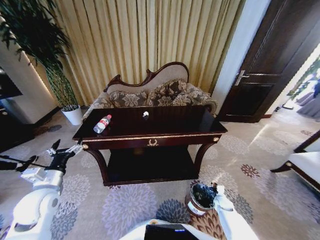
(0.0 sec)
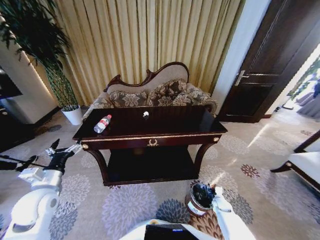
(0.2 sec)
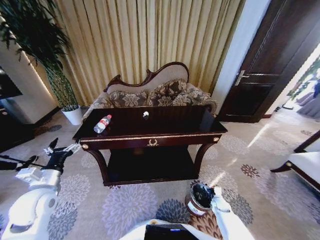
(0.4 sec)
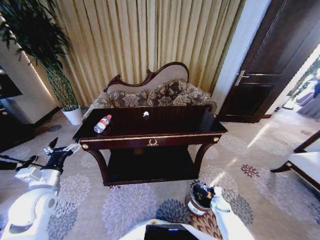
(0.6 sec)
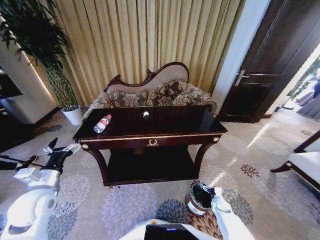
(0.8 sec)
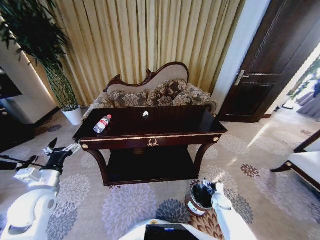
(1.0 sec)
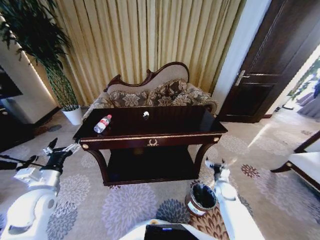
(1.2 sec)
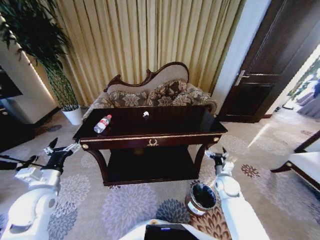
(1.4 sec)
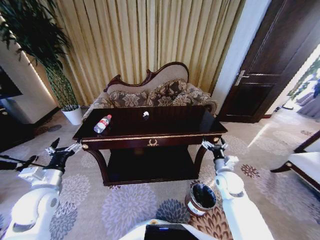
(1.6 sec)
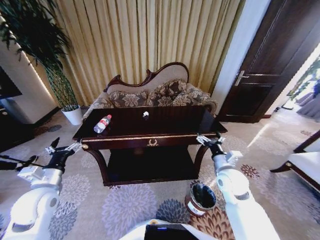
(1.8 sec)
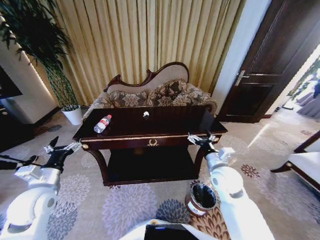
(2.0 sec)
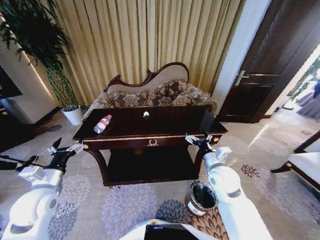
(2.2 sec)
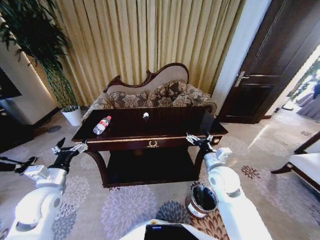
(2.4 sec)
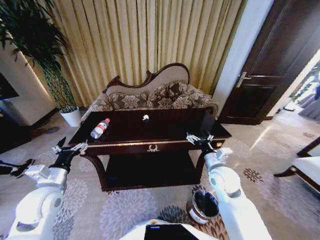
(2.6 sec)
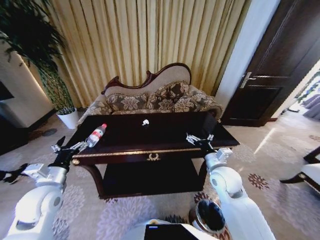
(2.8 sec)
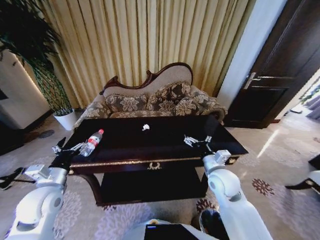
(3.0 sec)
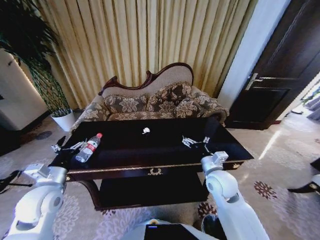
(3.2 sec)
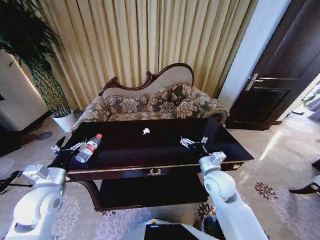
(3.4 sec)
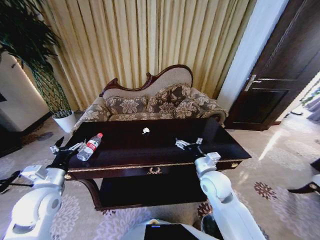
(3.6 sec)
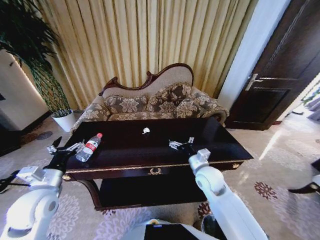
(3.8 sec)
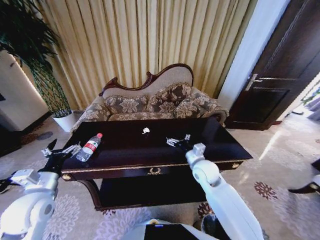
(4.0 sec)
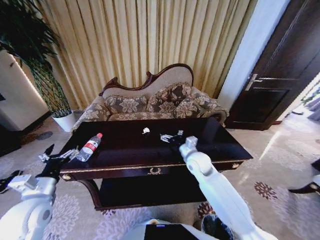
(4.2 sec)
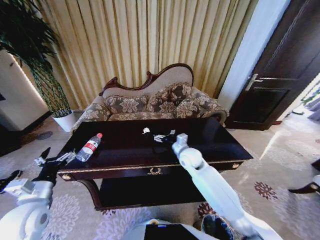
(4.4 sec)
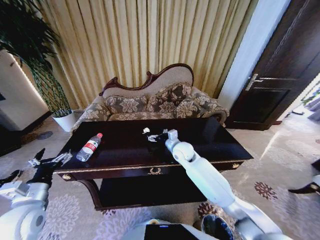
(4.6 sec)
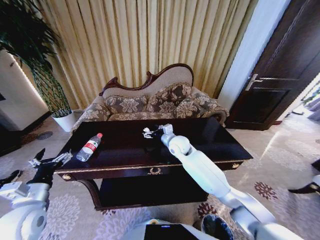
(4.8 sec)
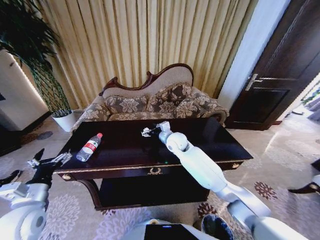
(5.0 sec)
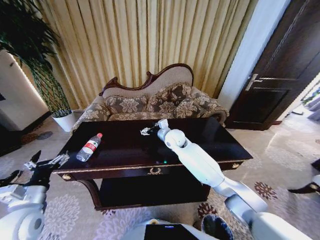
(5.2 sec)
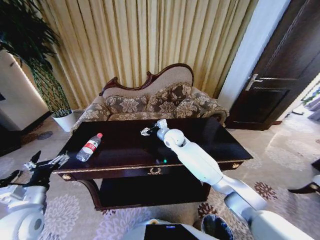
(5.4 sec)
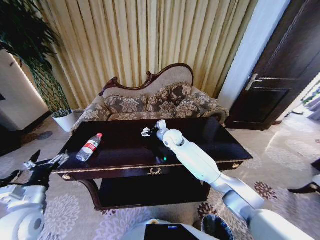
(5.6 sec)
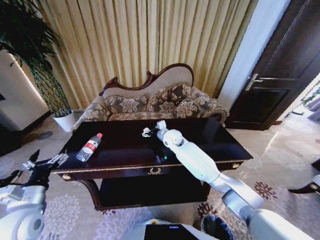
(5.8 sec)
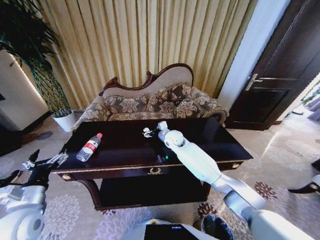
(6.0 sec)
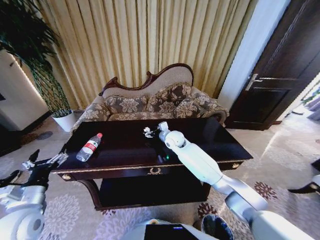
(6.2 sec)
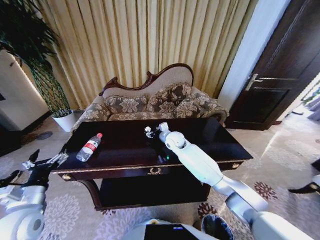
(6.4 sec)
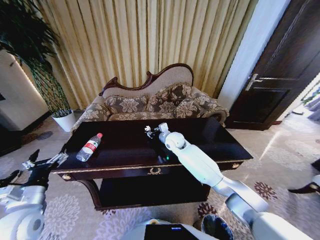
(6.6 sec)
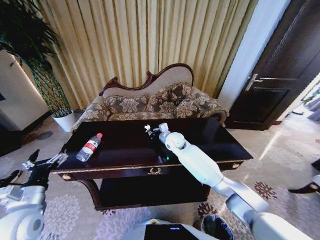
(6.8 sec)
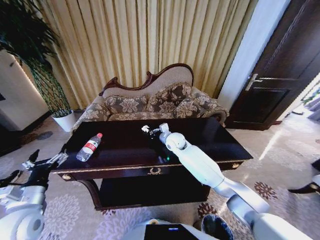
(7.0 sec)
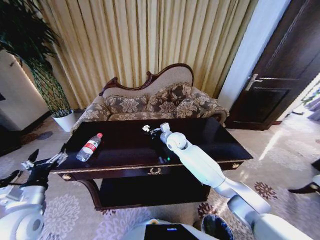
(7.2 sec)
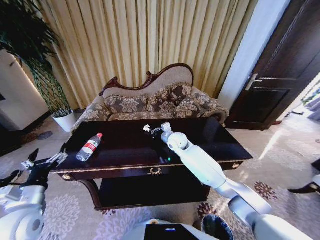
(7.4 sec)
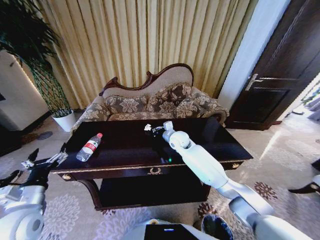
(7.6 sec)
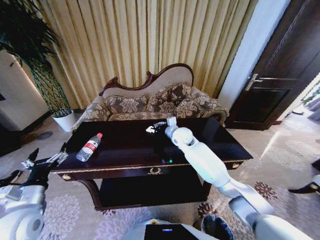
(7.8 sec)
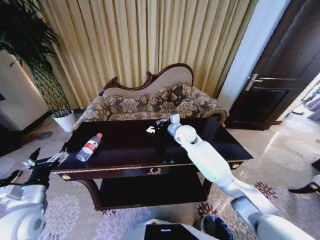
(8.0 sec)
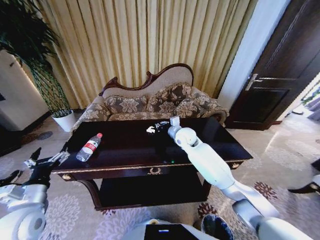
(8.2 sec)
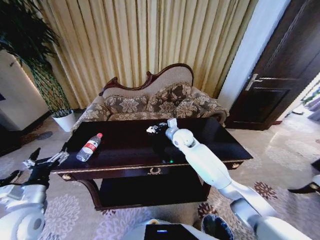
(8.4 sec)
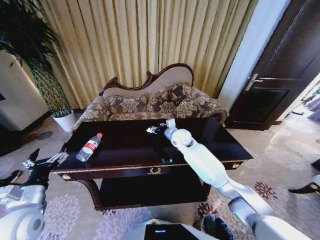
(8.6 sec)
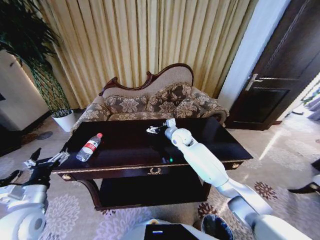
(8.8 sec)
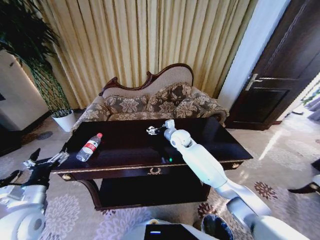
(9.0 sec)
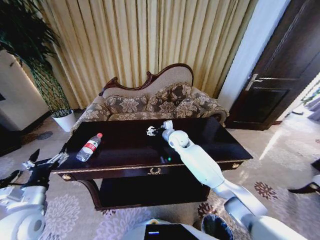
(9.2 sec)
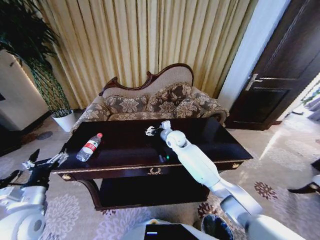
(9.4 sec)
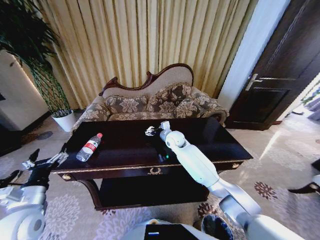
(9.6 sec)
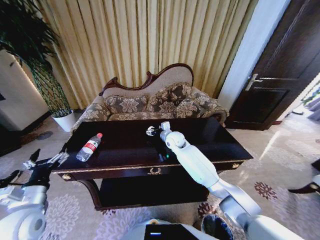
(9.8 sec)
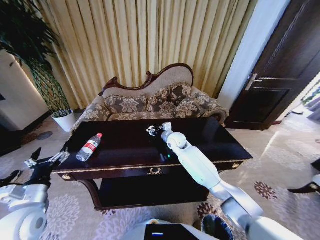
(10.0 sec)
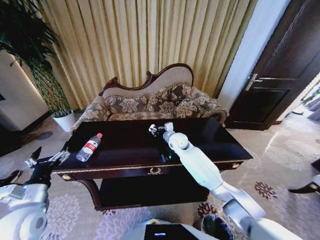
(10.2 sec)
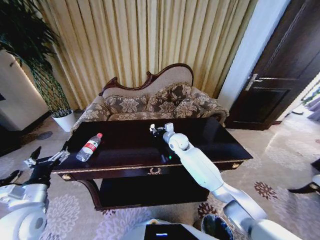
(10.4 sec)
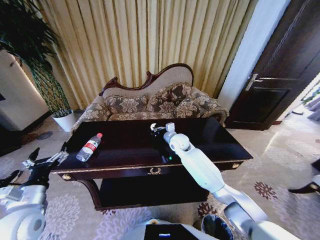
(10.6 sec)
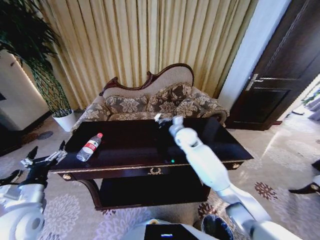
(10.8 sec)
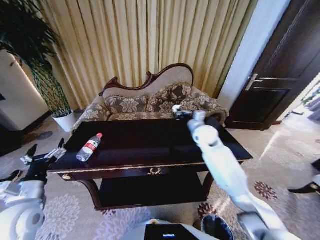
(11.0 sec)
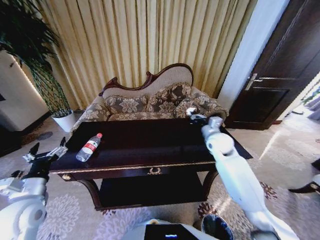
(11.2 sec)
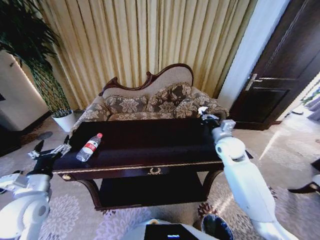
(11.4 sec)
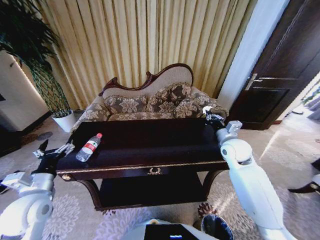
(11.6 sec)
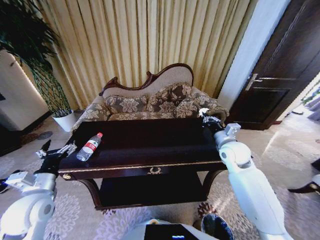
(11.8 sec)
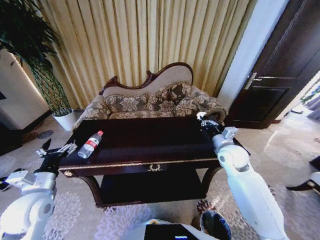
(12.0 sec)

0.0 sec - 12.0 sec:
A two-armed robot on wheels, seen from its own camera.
Task of the whole recording: Move to the front of the table and place the trash on the table into the trash bin.
0.0 sec - 1.6 sec: The right gripper goes approximately 25 cm upward, and opens up.
1.6 sec - 3.0 sec: The right gripper shifts about 10 cm upward and to the left.
3.0 sec - 4.4 sec: The right gripper moves forward and to the left, approximately 15 cm.
4.4 sec - 6.0 sec: The right gripper moves forward and to the left, about 10 cm.
6.0 sec - 7.6 sec: The right gripper closes up.
7.6 sec - 9.0 sec: The right gripper opens up.
9.0 sec - 10.4 sec: The right gripper closes.
10.4 sec - 12.0 sec: The right gripper shifts about 20 cm to the right and backward.

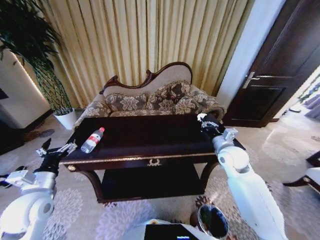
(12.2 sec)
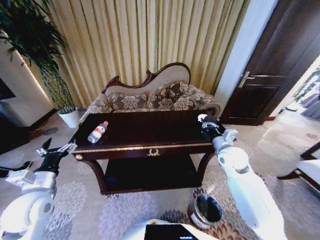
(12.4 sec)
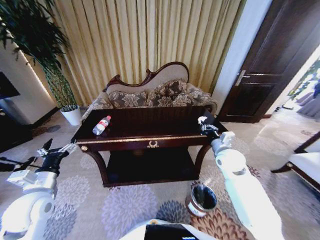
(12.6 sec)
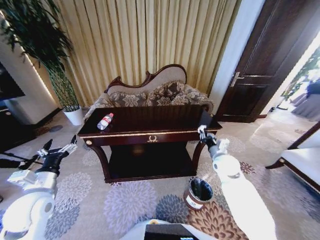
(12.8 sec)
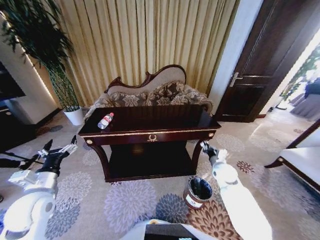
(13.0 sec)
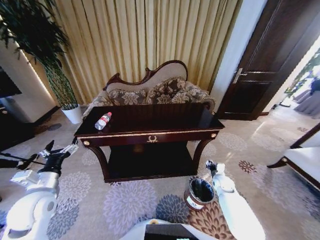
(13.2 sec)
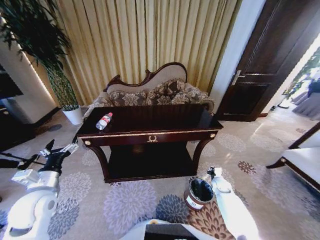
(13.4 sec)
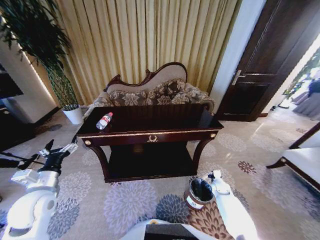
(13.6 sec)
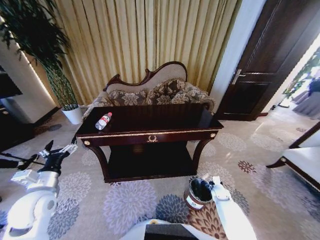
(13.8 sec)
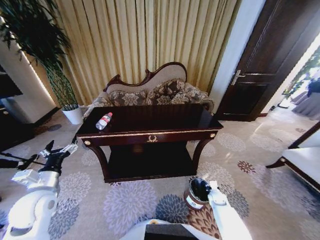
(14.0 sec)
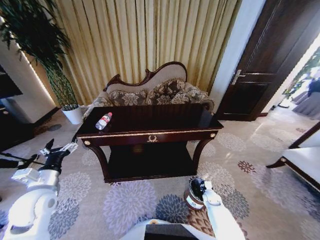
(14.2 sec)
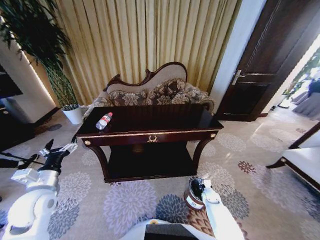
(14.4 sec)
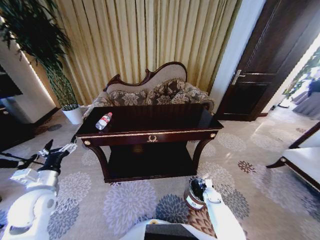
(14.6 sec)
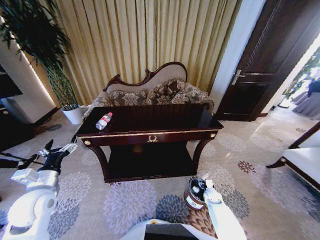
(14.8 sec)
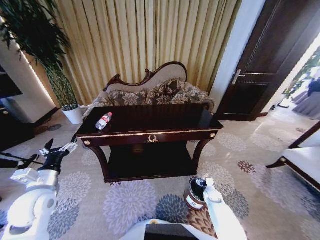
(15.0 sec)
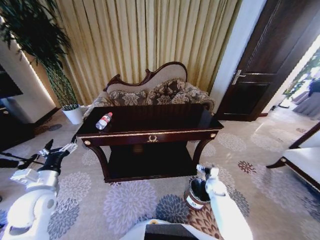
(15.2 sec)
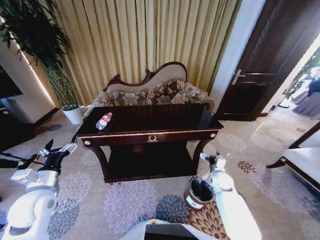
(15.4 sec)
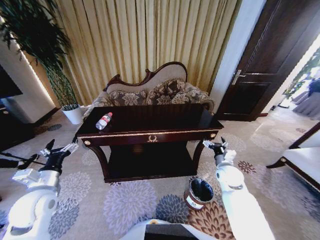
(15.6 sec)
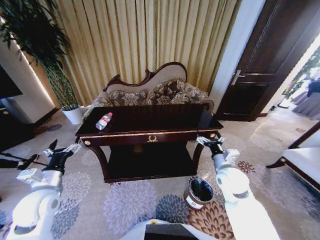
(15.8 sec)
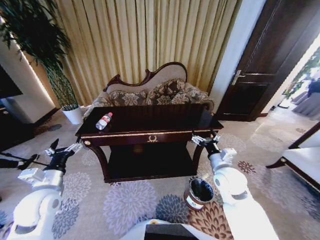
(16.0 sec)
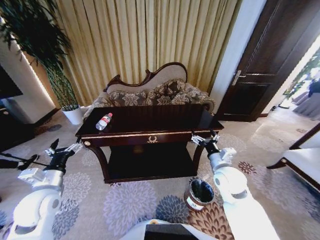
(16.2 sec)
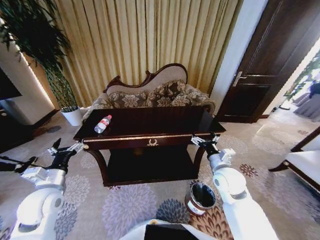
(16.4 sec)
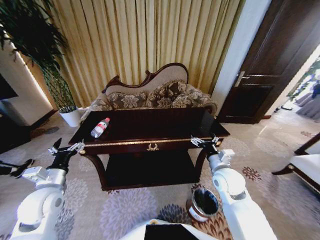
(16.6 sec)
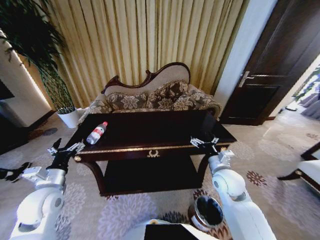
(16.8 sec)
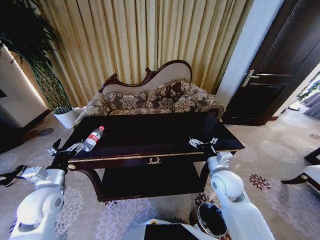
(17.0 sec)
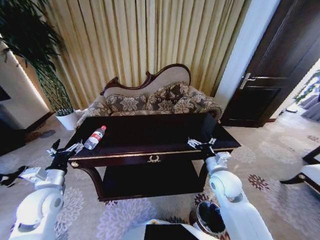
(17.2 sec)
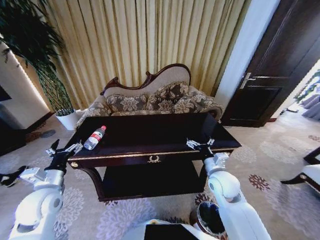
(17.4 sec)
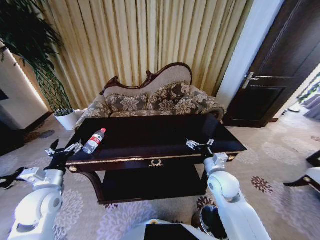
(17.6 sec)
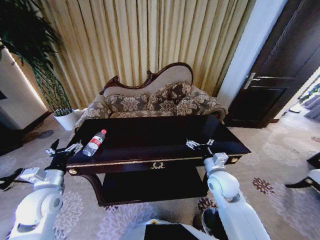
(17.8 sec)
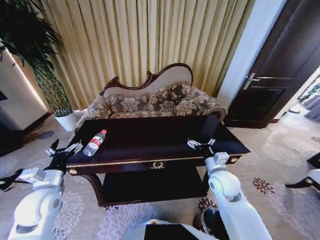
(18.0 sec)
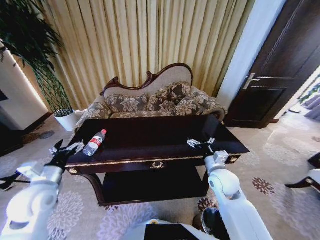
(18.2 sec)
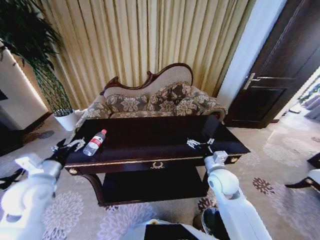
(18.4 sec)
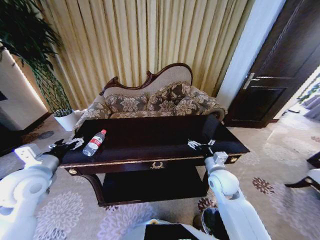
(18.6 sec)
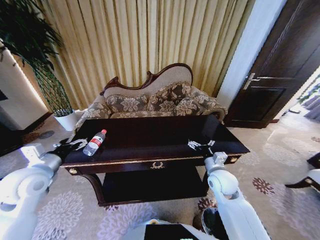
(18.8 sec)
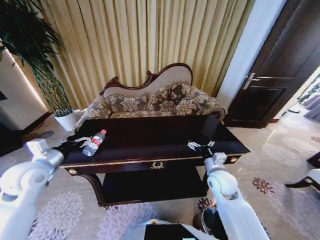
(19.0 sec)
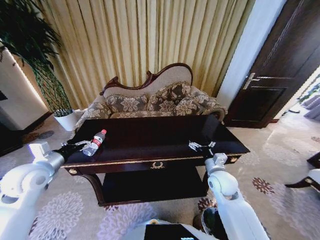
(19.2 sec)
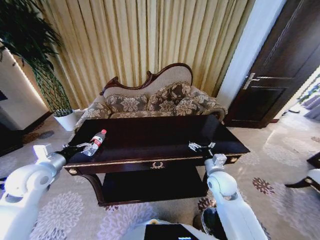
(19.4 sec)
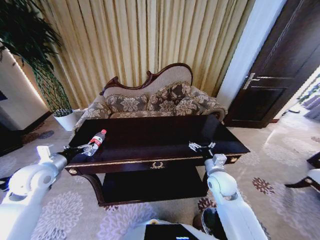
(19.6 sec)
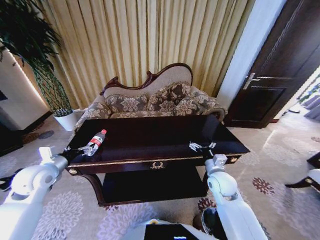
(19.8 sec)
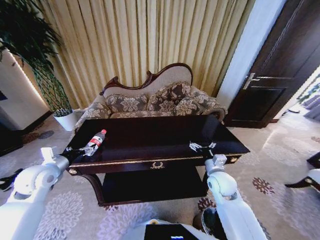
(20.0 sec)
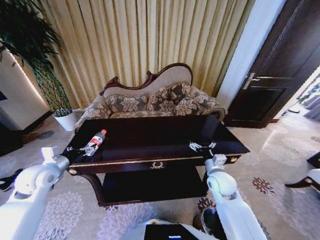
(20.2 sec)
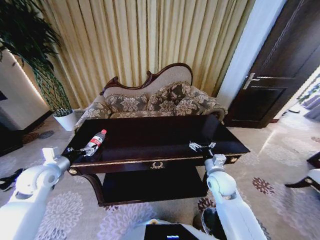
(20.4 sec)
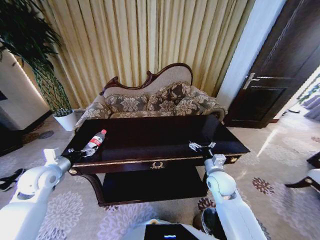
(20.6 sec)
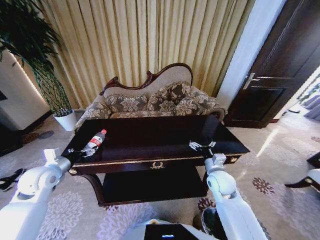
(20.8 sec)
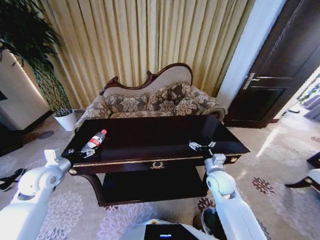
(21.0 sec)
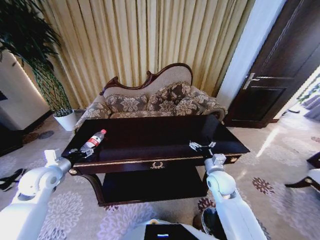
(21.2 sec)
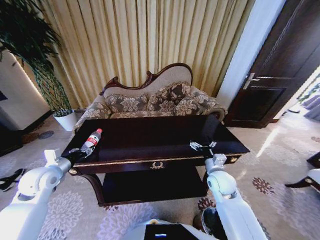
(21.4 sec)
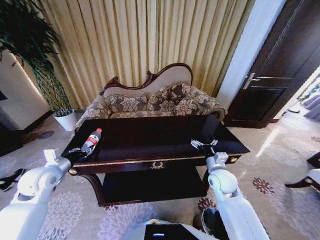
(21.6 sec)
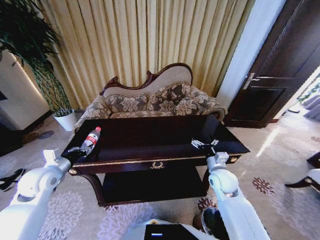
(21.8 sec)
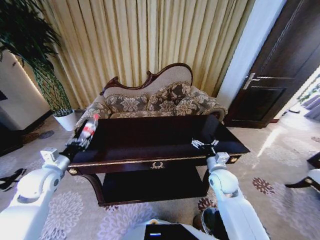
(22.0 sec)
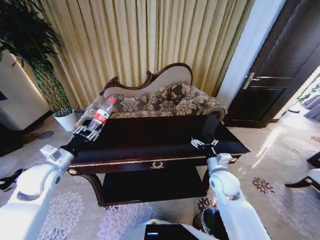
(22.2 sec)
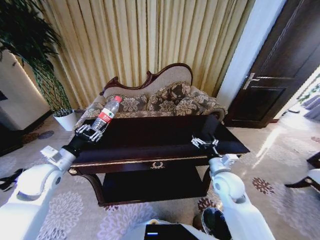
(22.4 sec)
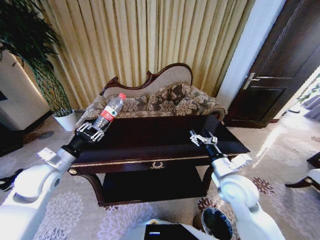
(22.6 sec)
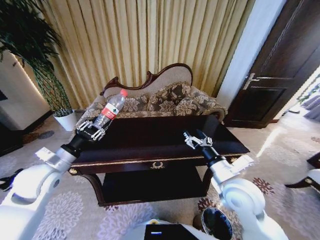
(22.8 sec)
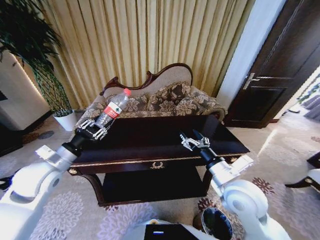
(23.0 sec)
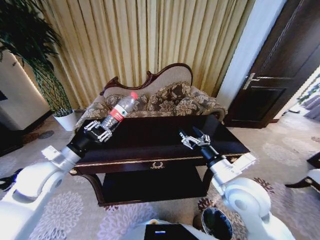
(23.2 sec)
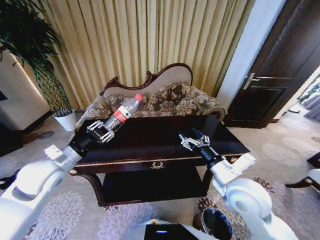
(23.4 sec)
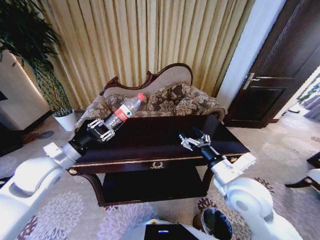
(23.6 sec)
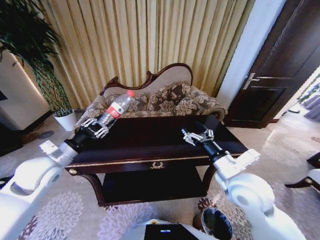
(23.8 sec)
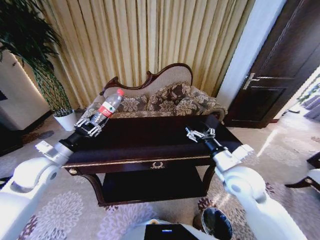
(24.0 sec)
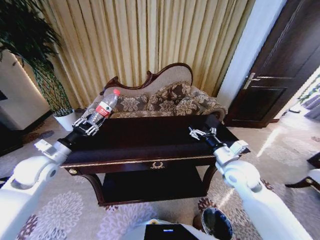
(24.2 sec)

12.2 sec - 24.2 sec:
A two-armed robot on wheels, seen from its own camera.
Task of the whole recording: Move to the front of the table and place the trash on the table into the trash bin.
12.2 sec - 13.8 sec: The right gripper travels downward by some 35 cm.
13.8 sec - 15.2 sec: The right gripper moves roughly 5 cm, and opens up.
15.2 sec - 16.6 sec: The right gripper shifts about 25 cm upward.
18.2 sec - 19.8 sec: The left gripper goes some 5 cm forward.
19.8 sec - 21.2 sec: The left gripper closes.
21.2 sec - 22.6 sec: The right gripper is displaced upward and backward by some 10 cm; the left gripper moves approximately 5 cm, and closes its fingers.
22.6 sec - 24.2 sec: The right gripper is displaced forward by some 5 cm; the left gripper ends up about 5 cm from where it was.
